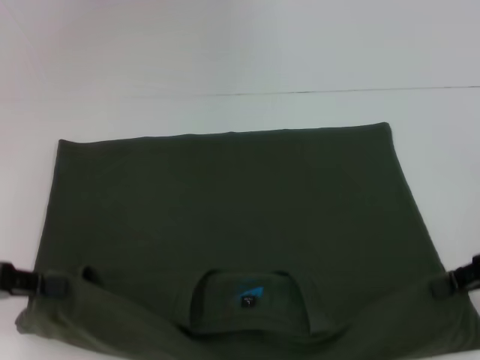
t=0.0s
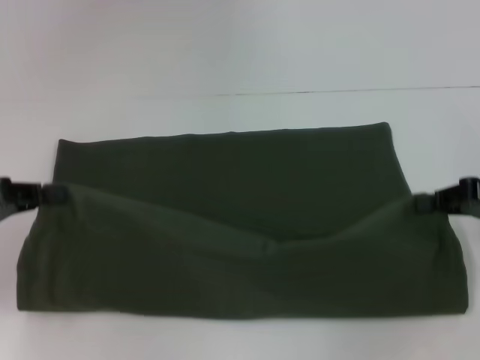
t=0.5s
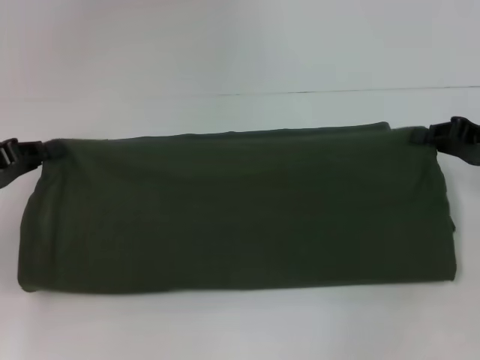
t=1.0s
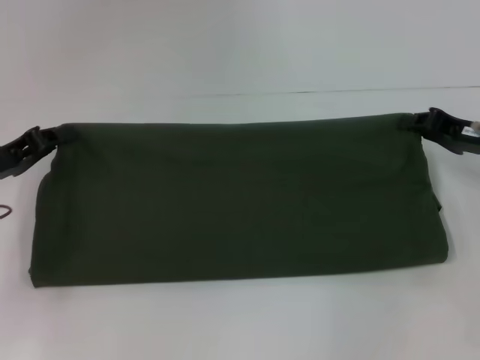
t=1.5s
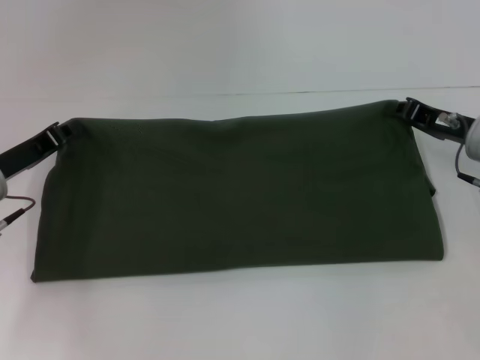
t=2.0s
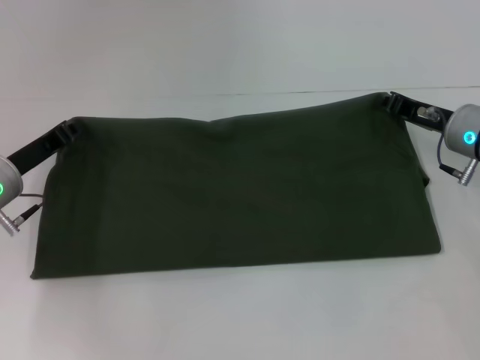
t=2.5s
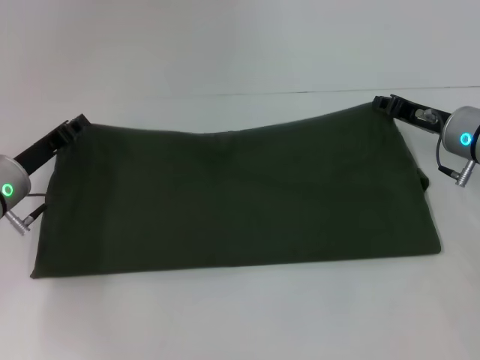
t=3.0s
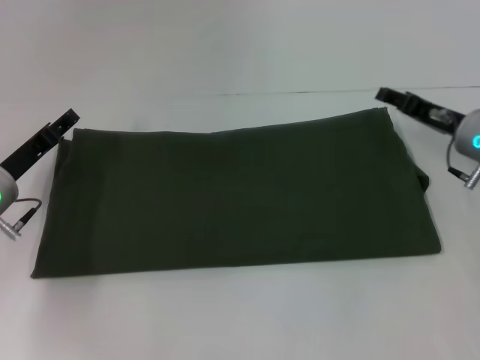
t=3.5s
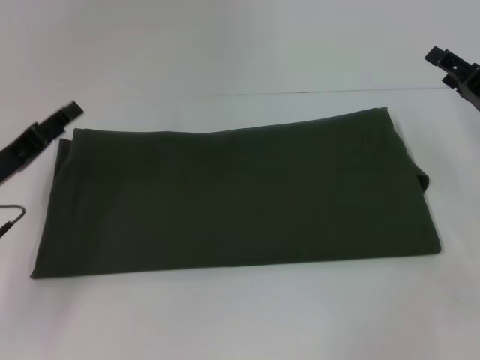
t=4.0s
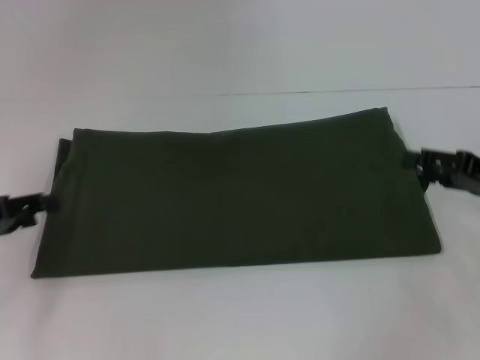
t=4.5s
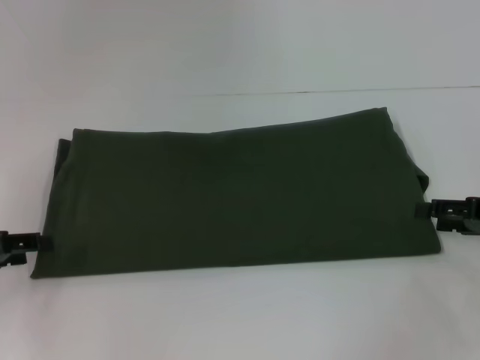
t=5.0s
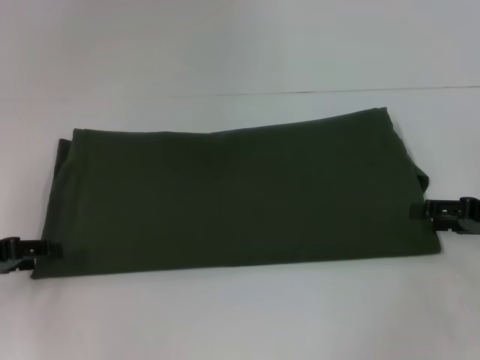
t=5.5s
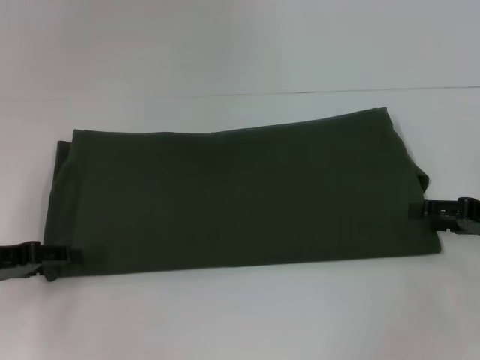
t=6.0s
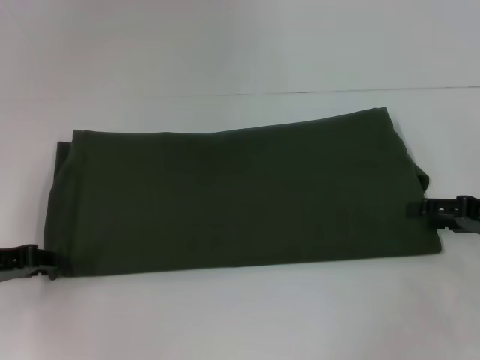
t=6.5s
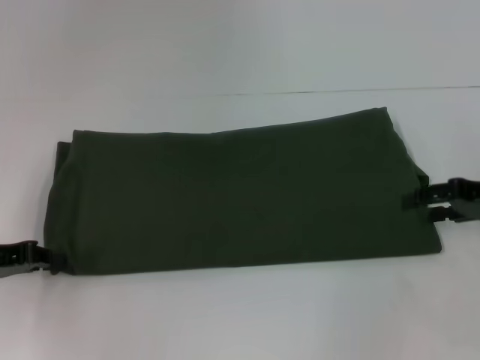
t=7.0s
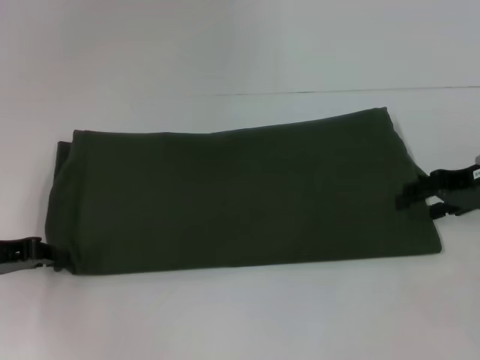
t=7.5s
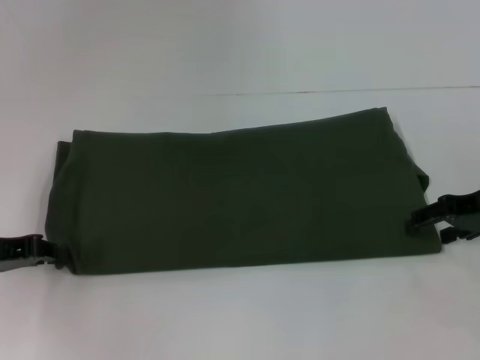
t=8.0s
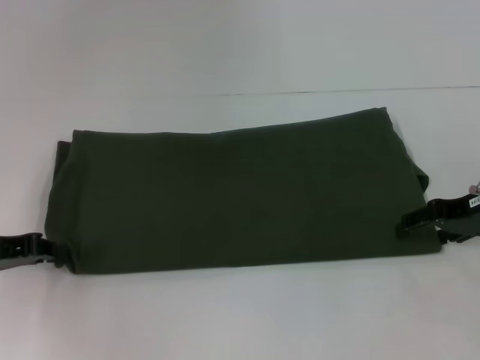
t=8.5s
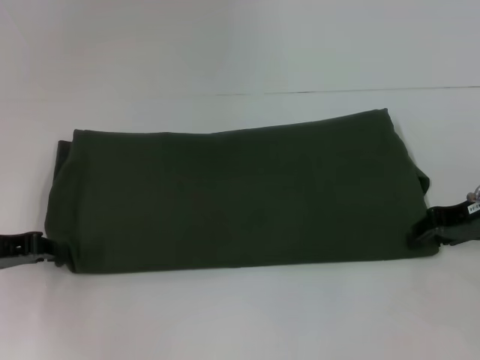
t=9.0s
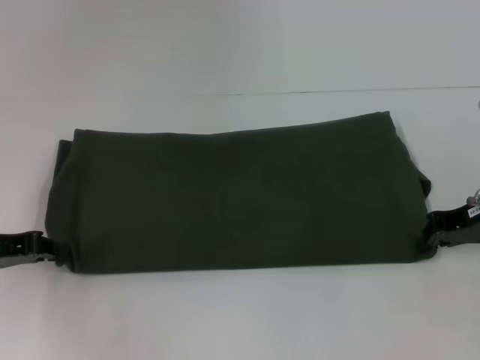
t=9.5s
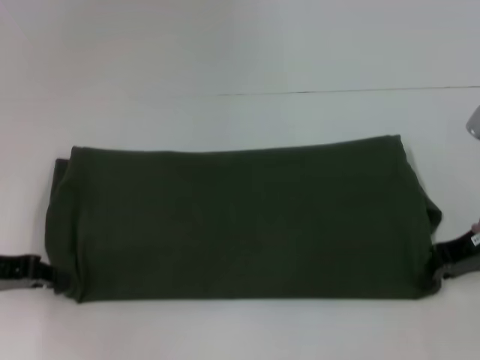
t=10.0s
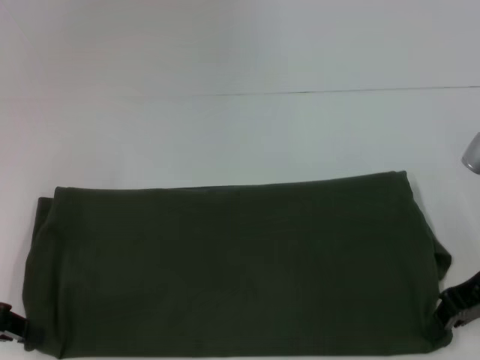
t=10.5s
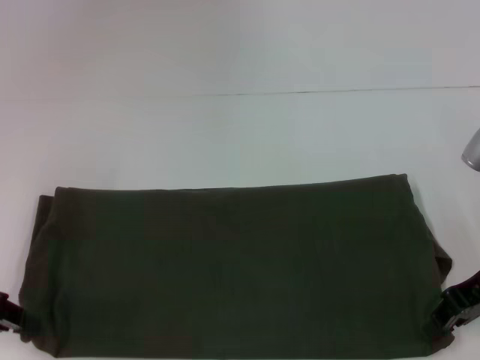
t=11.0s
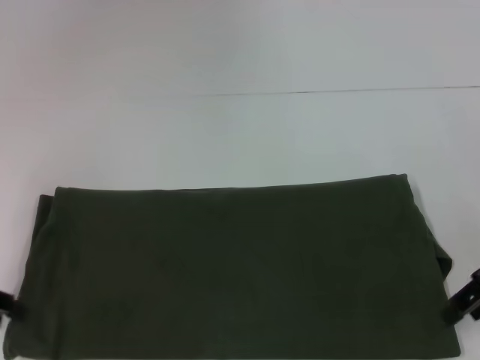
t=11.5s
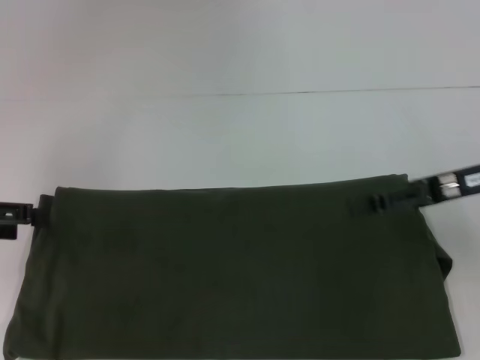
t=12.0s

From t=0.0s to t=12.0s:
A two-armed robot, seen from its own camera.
Step, from t=0.0s to t=3.0s: Fold the clothes with your left hand.
Step, from t=0.0s to t=3.0s: Fold the clothes with your right hand.
Step, from t=3.5s to t=11.0s: Pull the clothes with your left hand.
Step, from t=3.5s to t=11.0s: Pull the clothes with your right hand.
From t=0.0s to t=2.0s: The right gripper goes some 10 cm forward and to the left. The left gripper travels forward, downward and to the right by some 10 cm.
From t=2.0s to t=4.0s: The right gripper opens up, while the left gripper opens its fingers.
From t=4.0s to t=6.0s: The right gripper heads backward, covering roughly 5 cm.
From t=6.0s to t=8.0s: The left gripper closes its fingers.
From t=8.0s to t=10.0s: The right gripper closes its fingers.
From t=10.0s to t=12.0s: The right gripper shifts by approximately 5 cm, and opens up. Meanwhile the left gripper travels upward by about 5 cm, and opens.

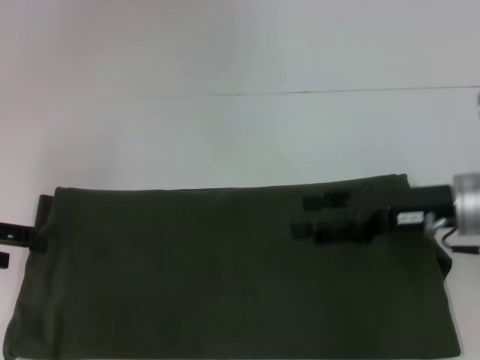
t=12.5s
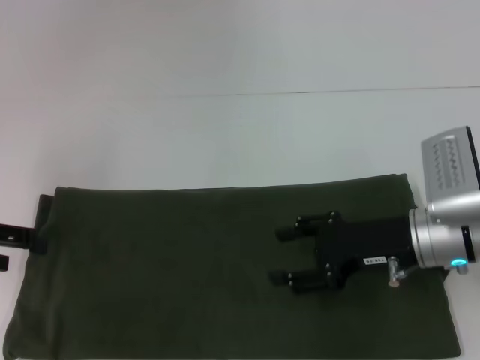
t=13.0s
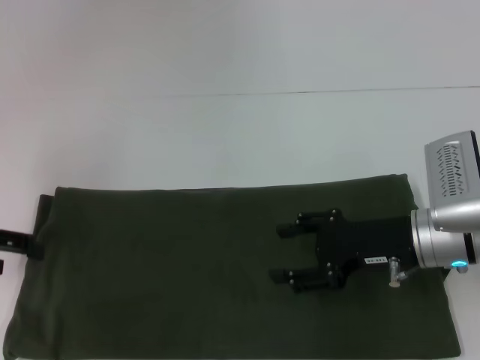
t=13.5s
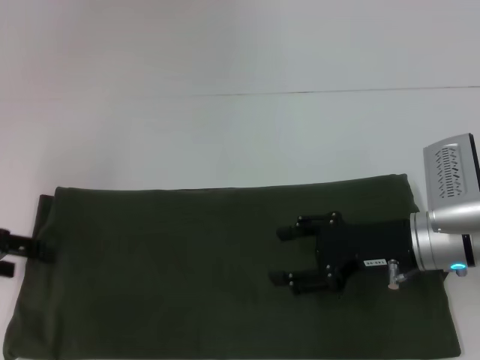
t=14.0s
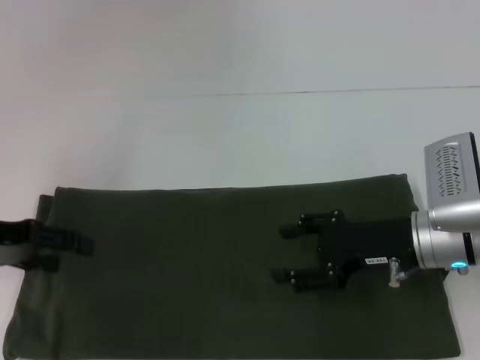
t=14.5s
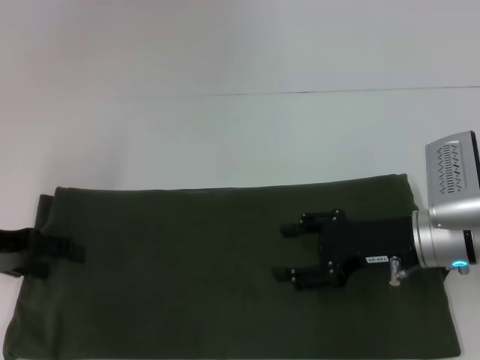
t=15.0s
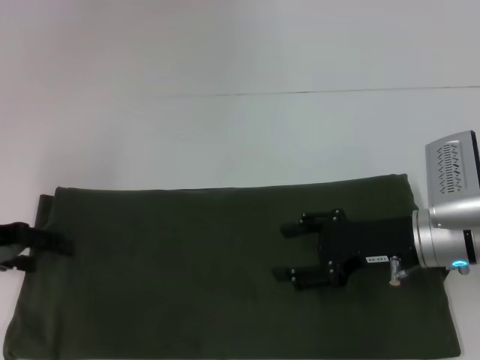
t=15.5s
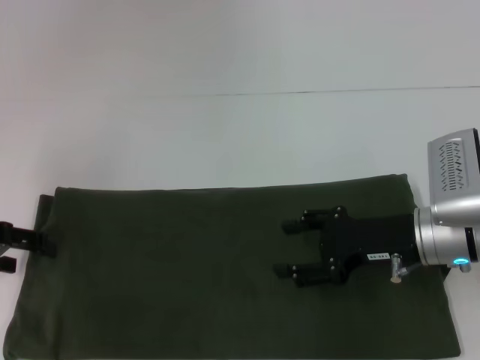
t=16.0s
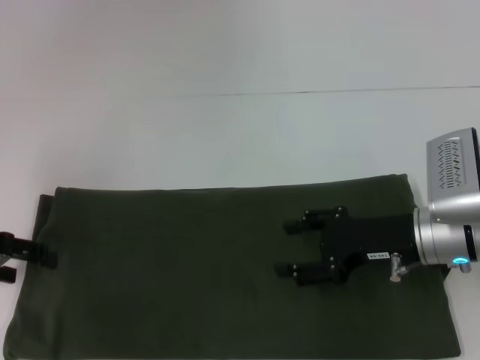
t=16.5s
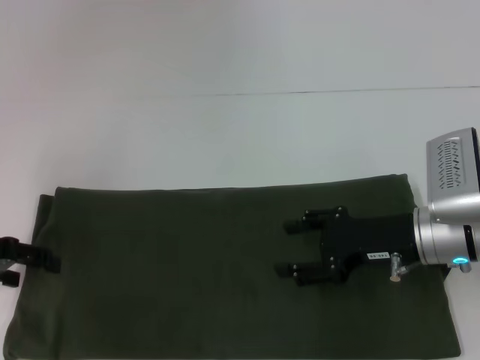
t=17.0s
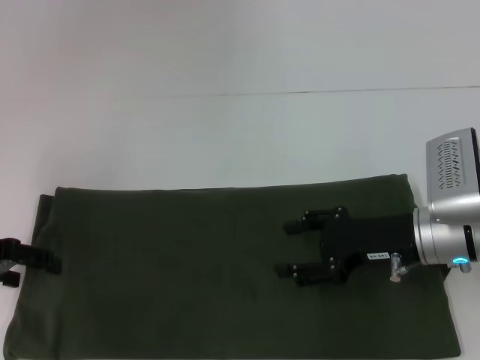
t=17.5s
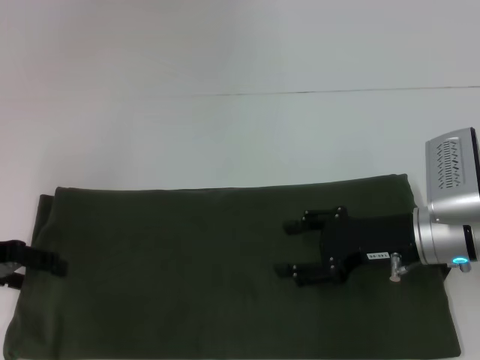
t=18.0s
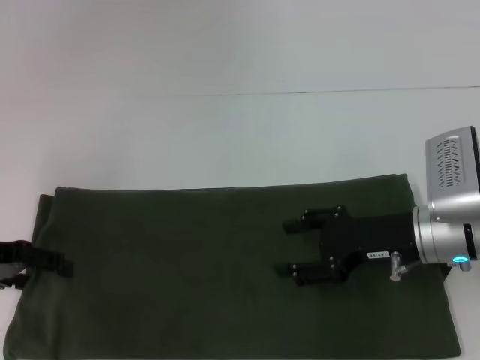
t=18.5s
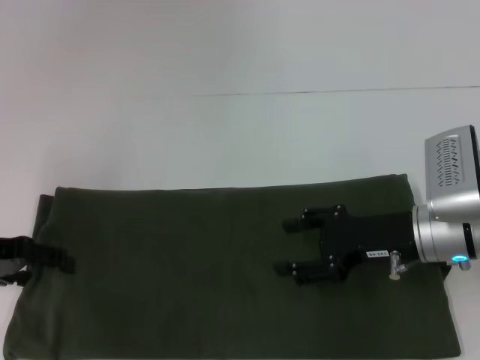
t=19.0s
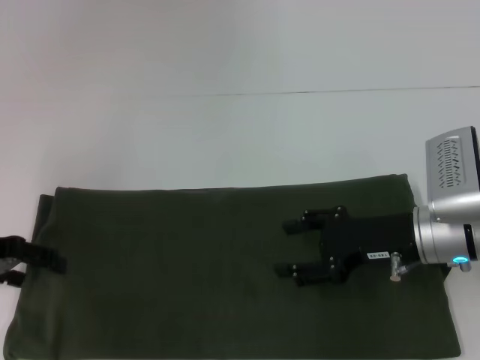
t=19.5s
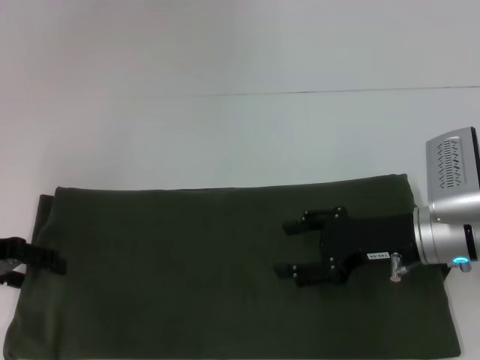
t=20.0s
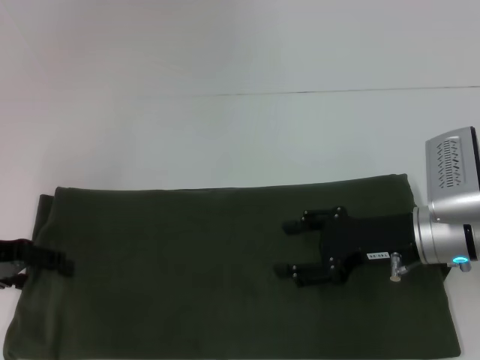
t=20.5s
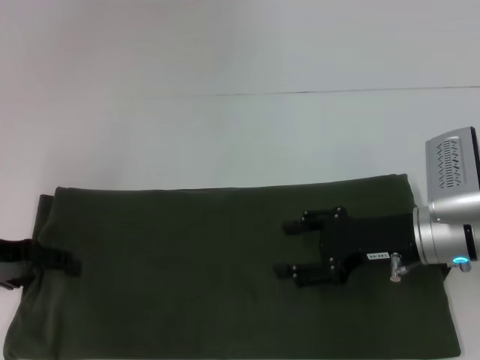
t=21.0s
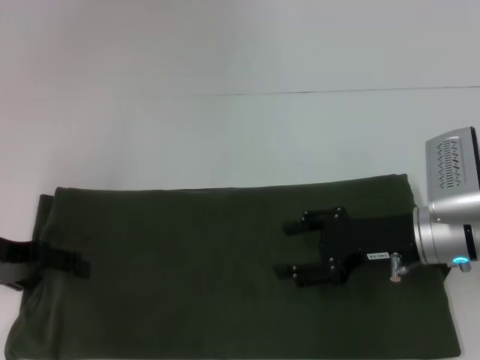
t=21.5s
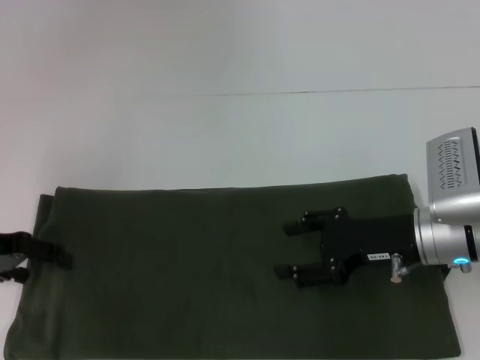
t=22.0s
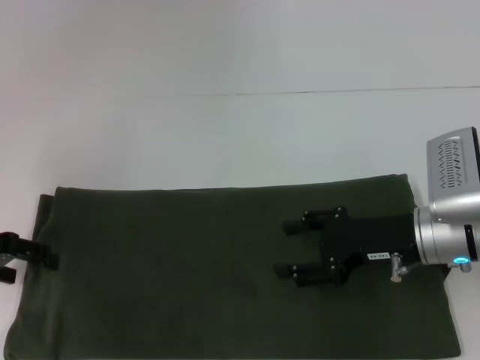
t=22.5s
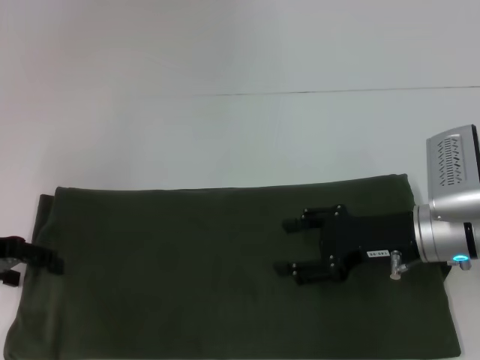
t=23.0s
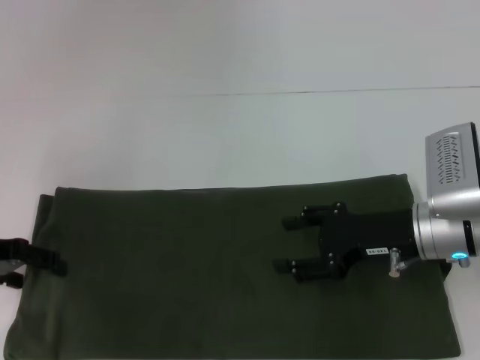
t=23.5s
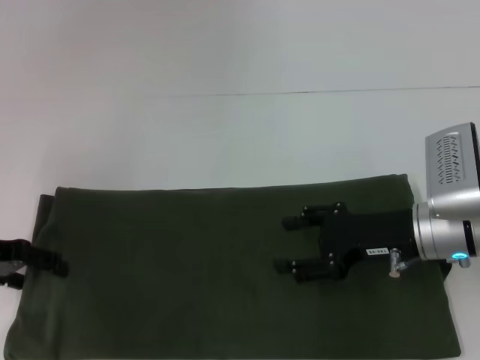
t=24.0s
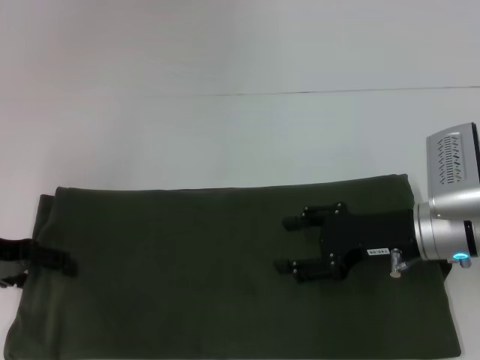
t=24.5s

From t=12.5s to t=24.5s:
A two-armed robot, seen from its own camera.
From t=14.5s to t=18.5s: The grippers make only small movements.
From t=18.5s to t=22.5s: Neither gripper changes place.
From t=22.5s to t=24.5s: There are only small adjustments of the grippers.

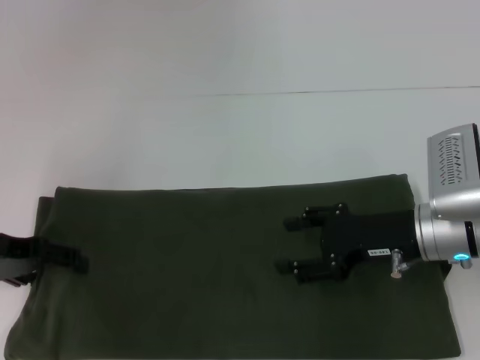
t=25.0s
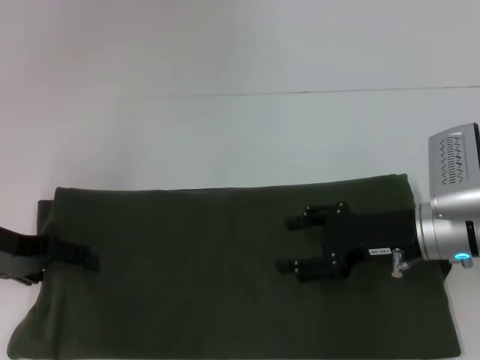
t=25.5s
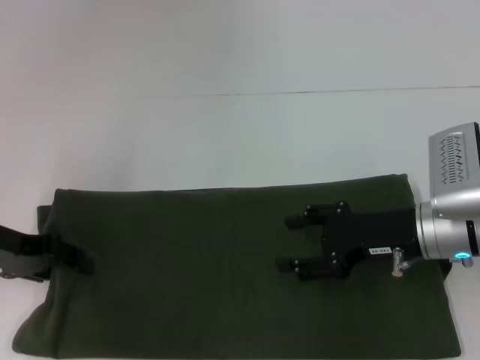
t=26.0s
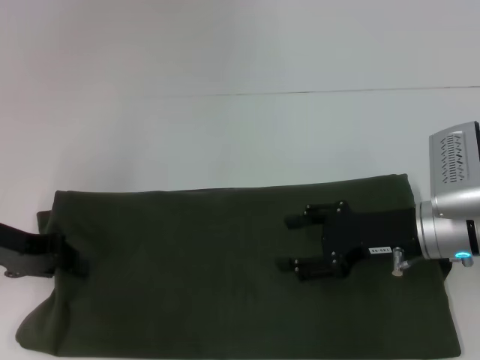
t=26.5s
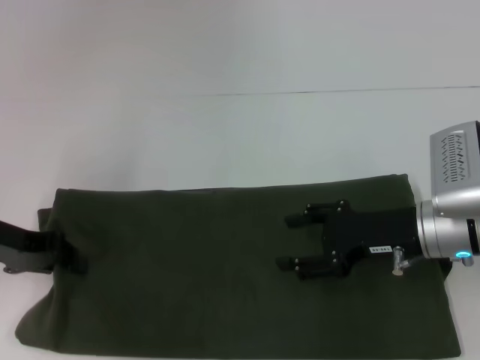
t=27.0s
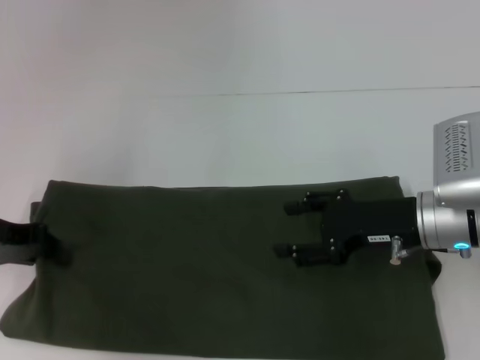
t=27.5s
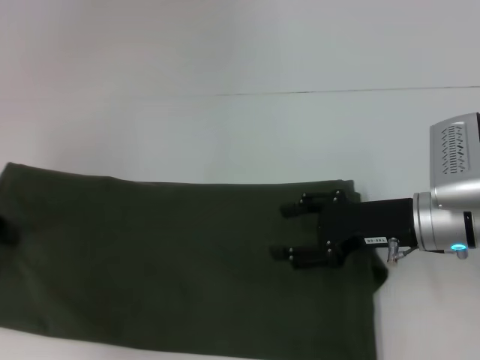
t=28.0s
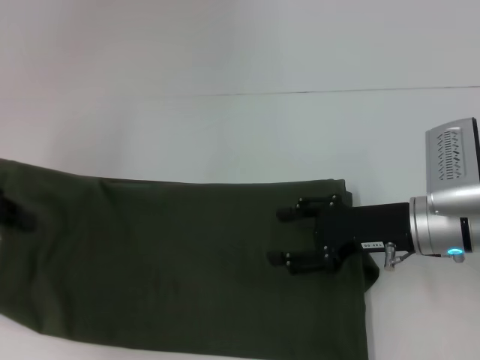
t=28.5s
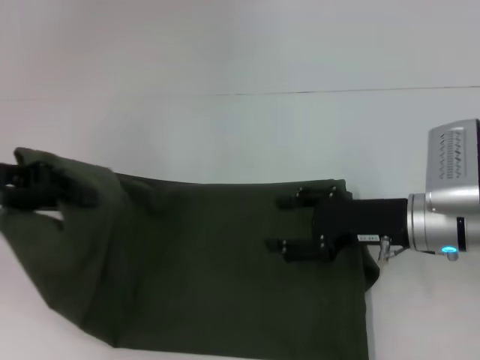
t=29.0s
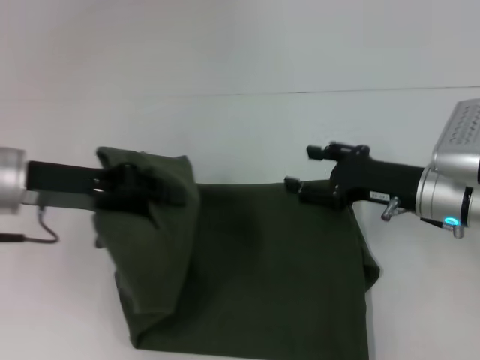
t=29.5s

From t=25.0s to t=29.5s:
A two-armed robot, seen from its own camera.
From t=25.0s to t=27.0s: The left gripper closes its fingers.
From t=27.0s to t=29.5s: The left gripper travels to the right by about 5 cm.
